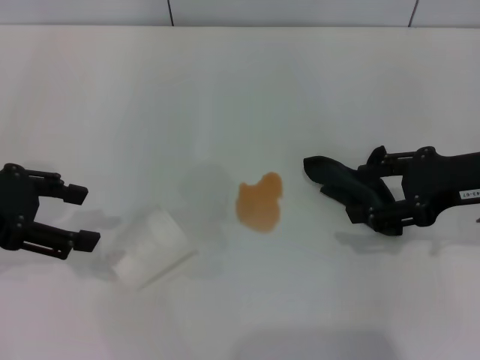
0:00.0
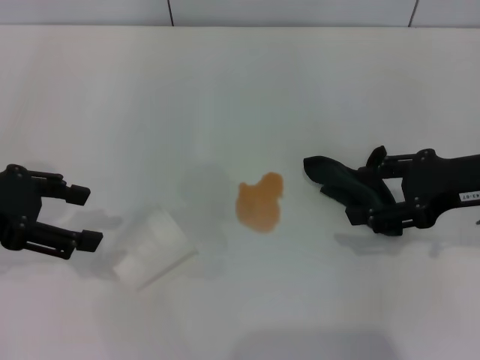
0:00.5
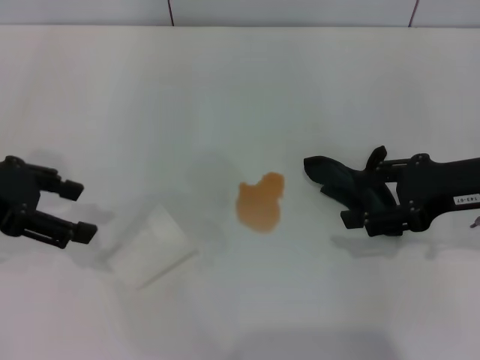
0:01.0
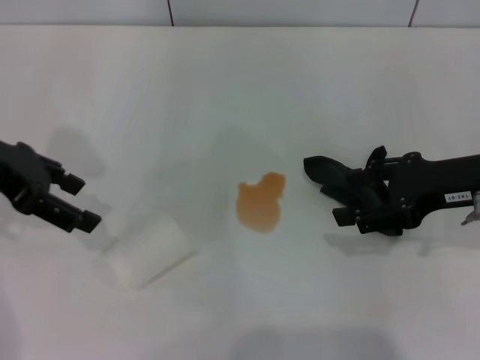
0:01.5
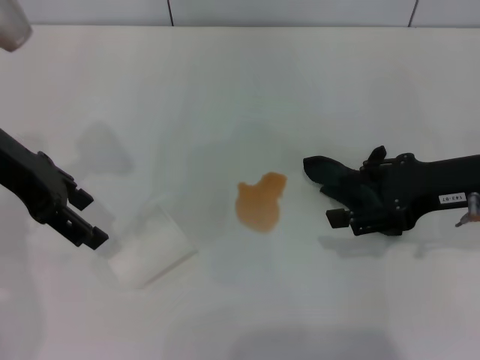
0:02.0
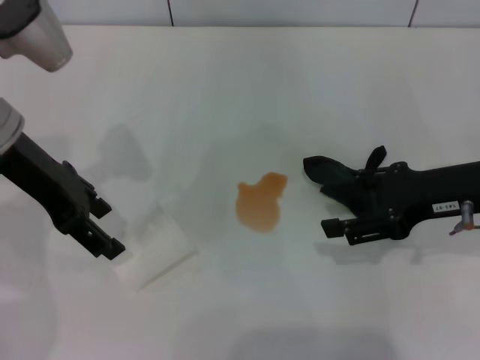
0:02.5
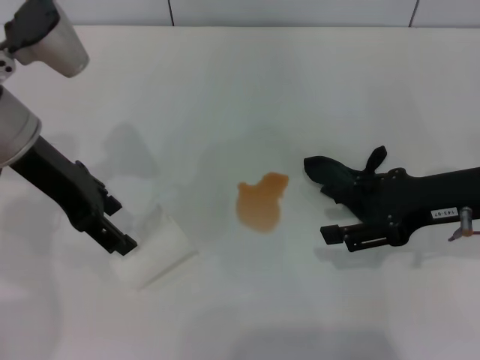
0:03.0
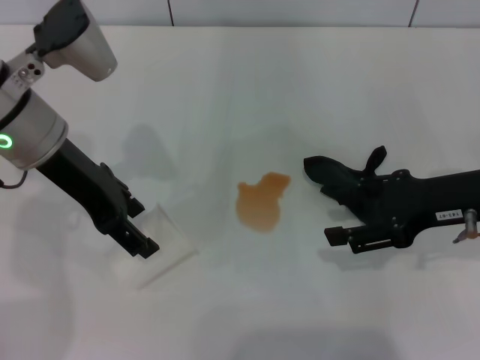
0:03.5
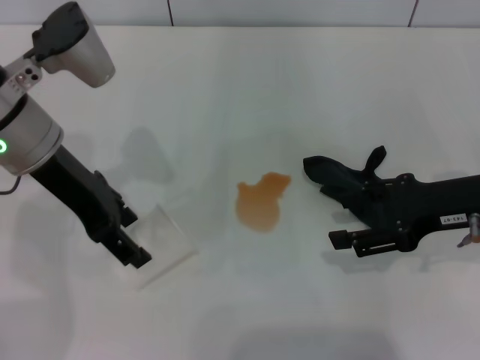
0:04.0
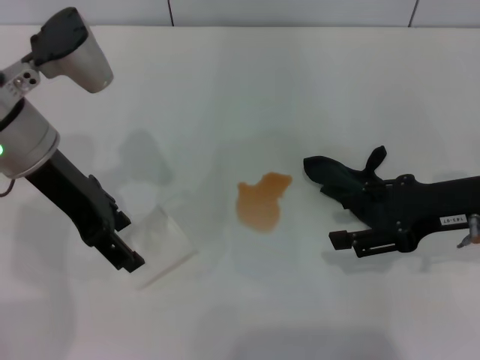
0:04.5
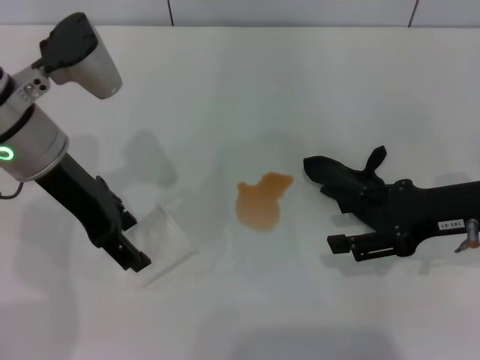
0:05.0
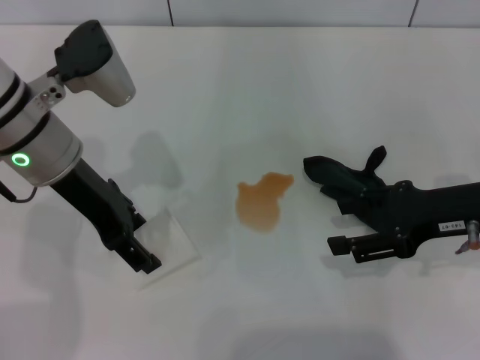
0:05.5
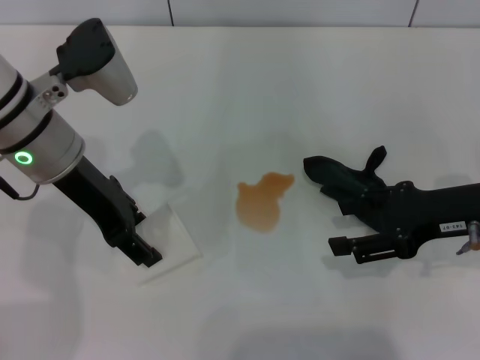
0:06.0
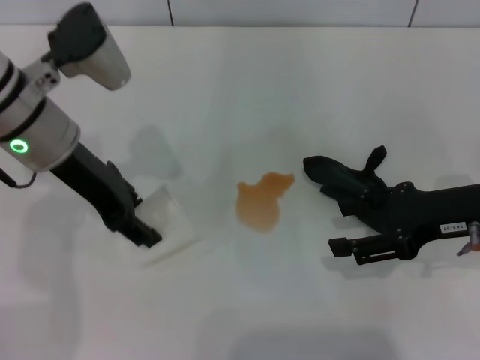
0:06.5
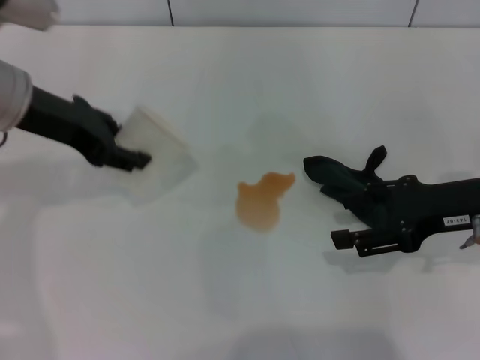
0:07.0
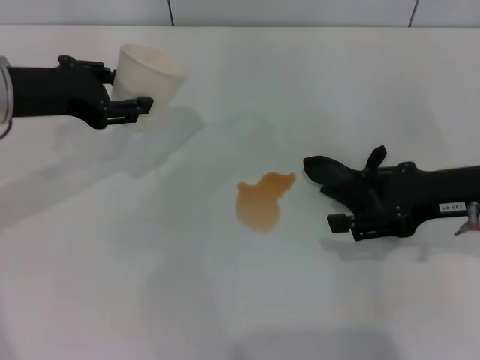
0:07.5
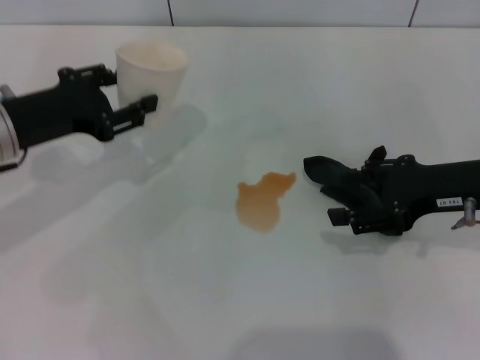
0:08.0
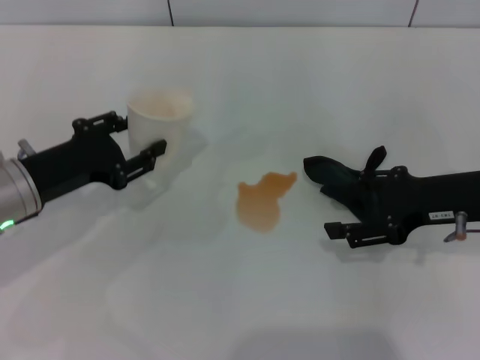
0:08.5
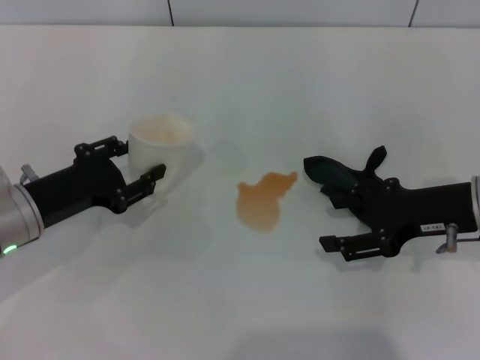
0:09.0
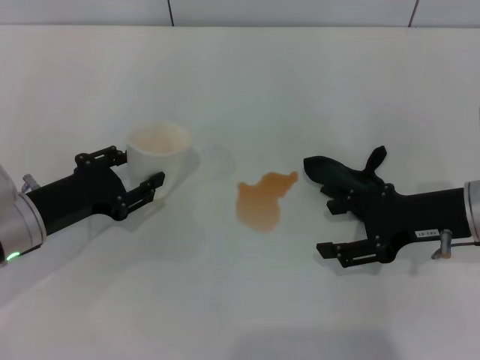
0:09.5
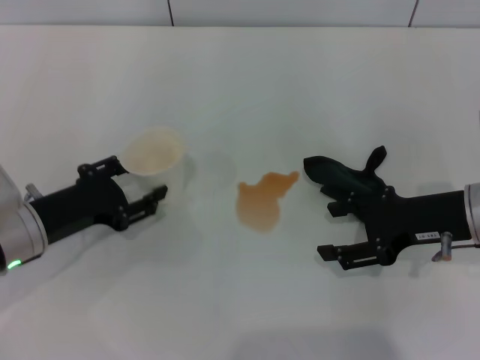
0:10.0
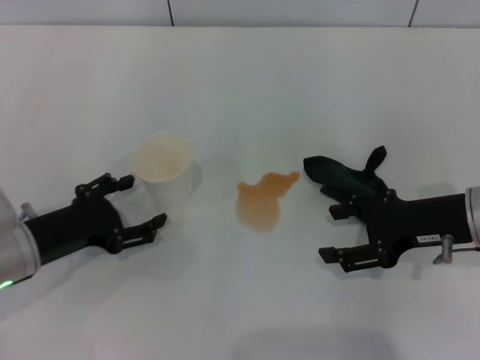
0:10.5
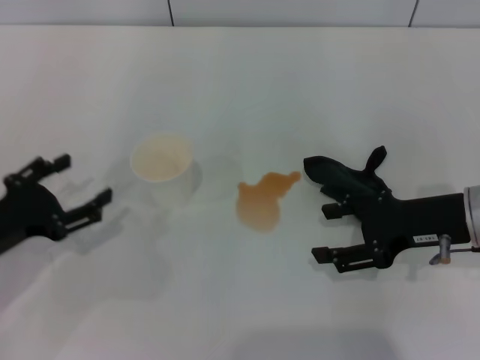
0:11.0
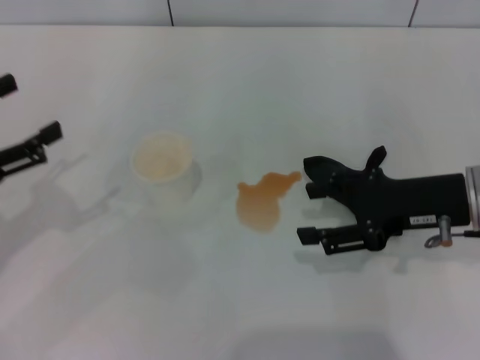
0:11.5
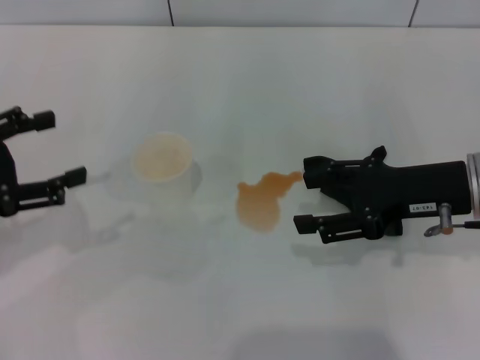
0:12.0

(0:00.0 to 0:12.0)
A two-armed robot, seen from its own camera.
Step, 0:00.0 - 0:06.0: Grasp the paper cup with the left gripper.
Step, 0:06.5 - 0:10.0: Stand the paper cup upright with the left gripper.
0:00.0 - 0:02.0: The left gripper moves forward and to the right, about 10 cm.
0:02.0 - 0:04.0: The left gripper changes place by some 5 cm.
0:04.0 - 0:06.0: The grippers move only a little.
0:06.0 - 0:08.0: The left gripper moves to the left, roughly 10 cm, and closes.
0:08.0 - 0:10.0: The left gripper travels downward and backward by approximately 10 cm.
0:10.0 - 0:12.0: The left gripper travels upward and to the left by approximately 15 cm, and opens.

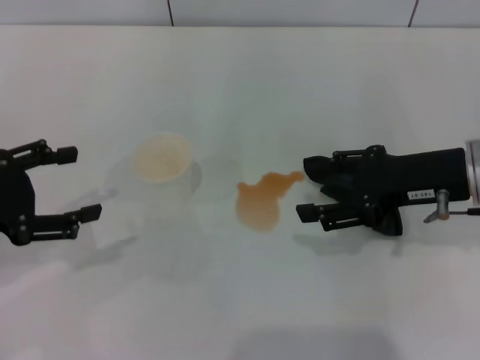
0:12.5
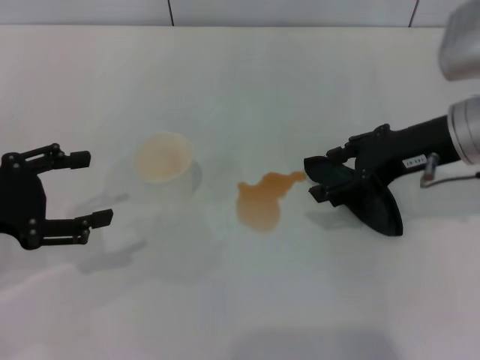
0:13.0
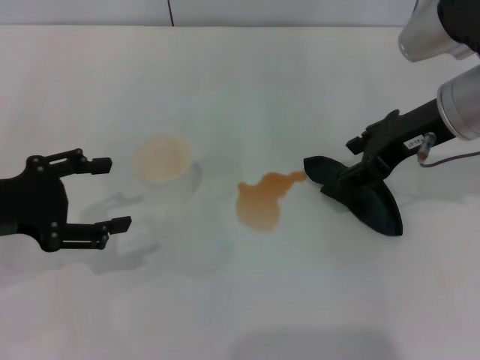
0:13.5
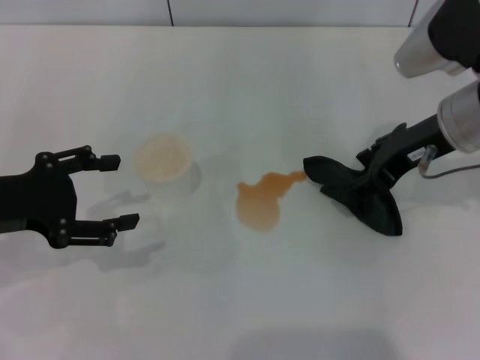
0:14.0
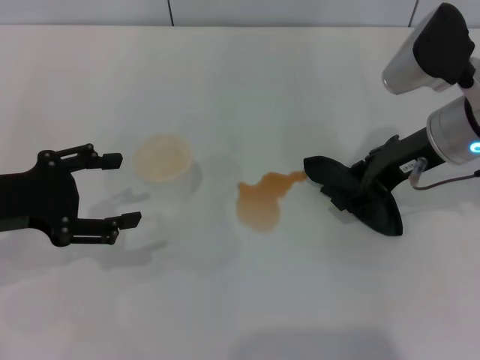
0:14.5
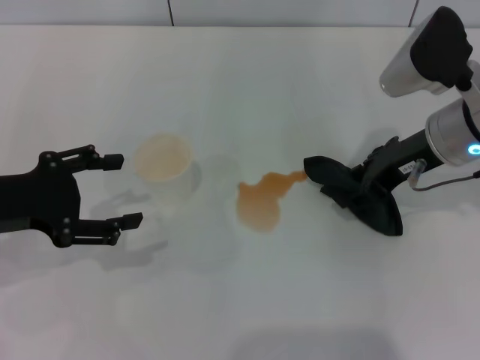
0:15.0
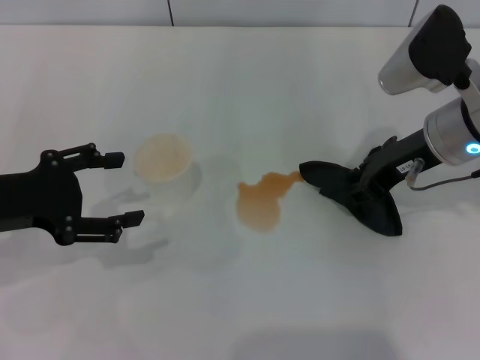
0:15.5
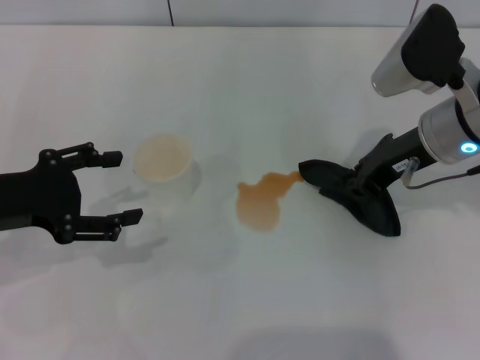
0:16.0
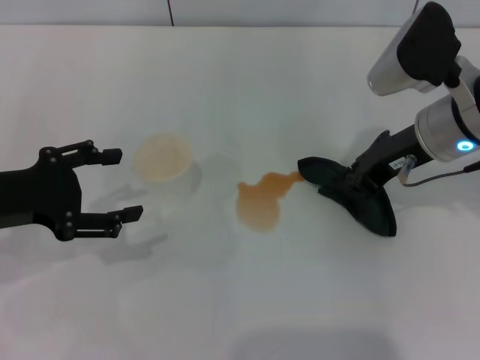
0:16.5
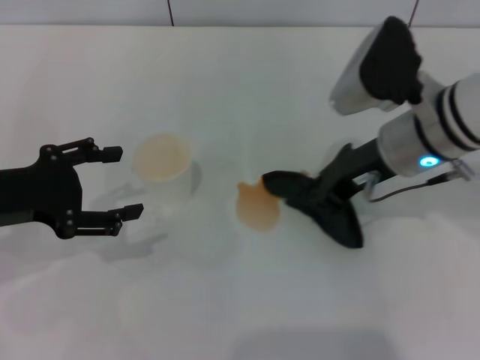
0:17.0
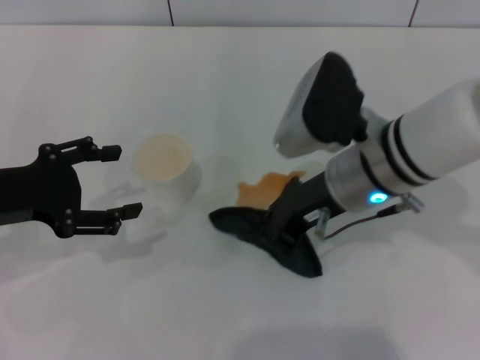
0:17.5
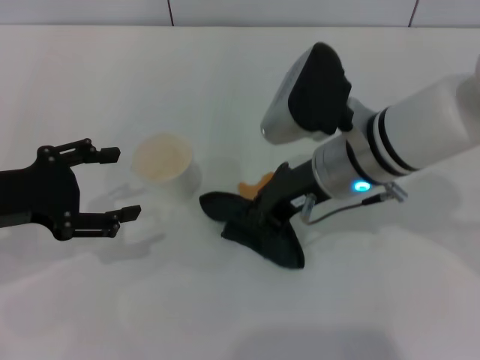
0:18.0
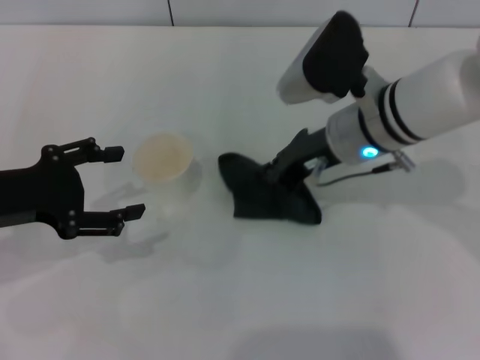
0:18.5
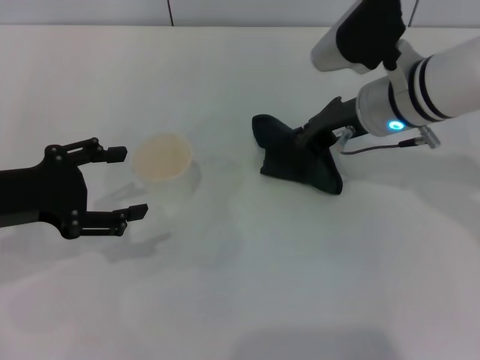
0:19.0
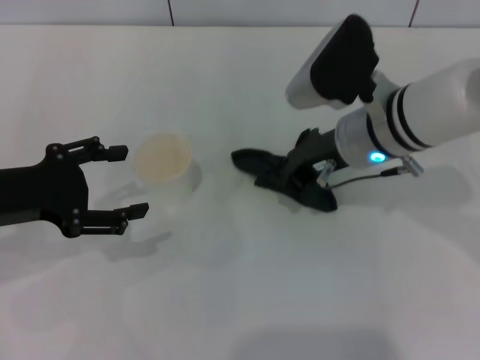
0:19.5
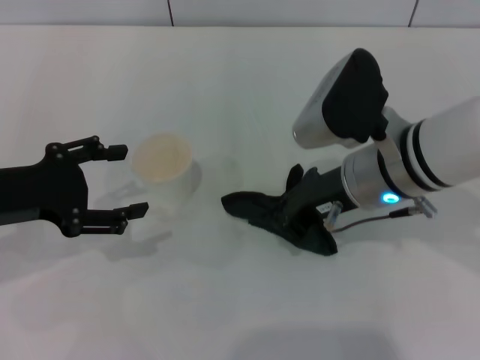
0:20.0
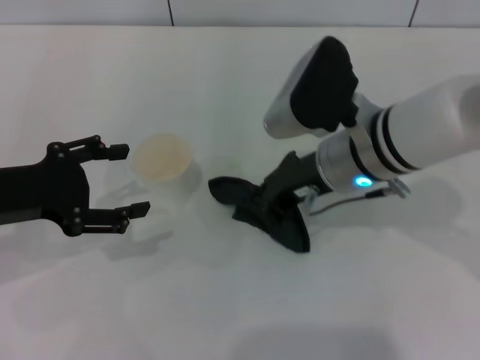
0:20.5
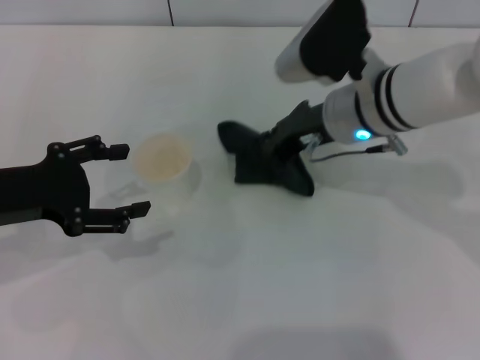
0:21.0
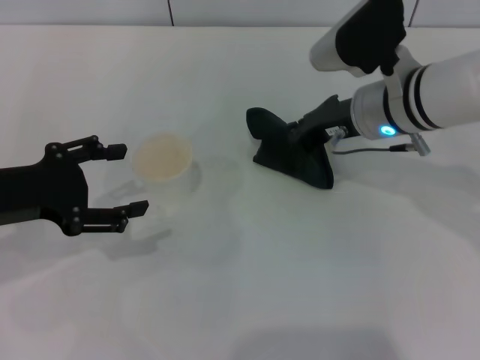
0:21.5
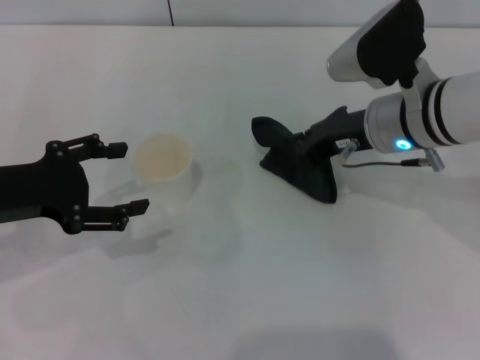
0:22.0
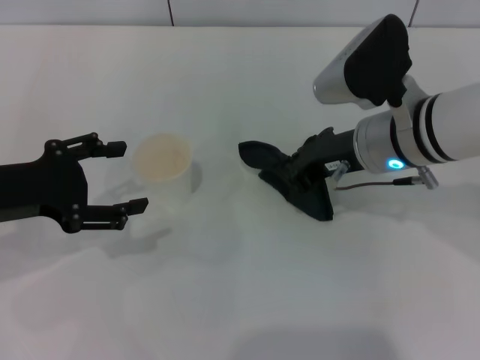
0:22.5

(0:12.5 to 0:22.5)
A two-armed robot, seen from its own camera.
Step, 0:12.5 - 0:16.0: Grasp the rag with the right gripper.
0:12.5 - 0:14.5: The right gripper travels forward by some 5 cm.
0:14.5 - 0:16.5: The right gripper closes its fingers.
0:16.5 - 0:18.5: The right gripper is displaced to the left by about 10 cm.
0:18.5 - 0:20.5: The grippers move only a little.

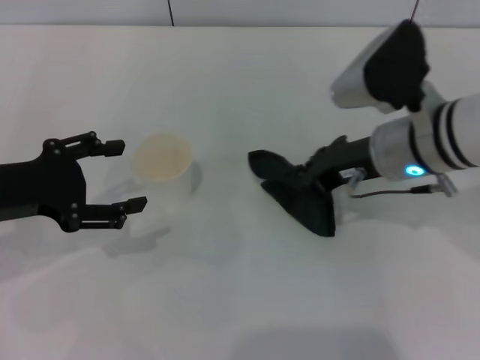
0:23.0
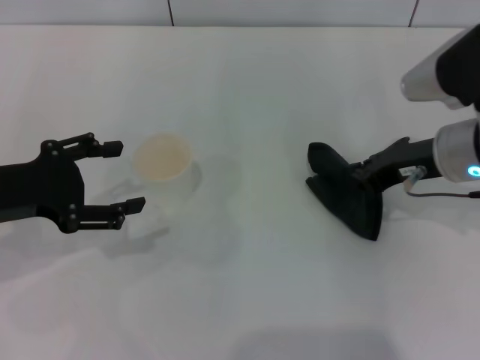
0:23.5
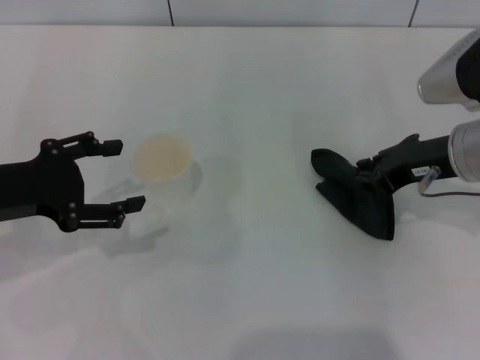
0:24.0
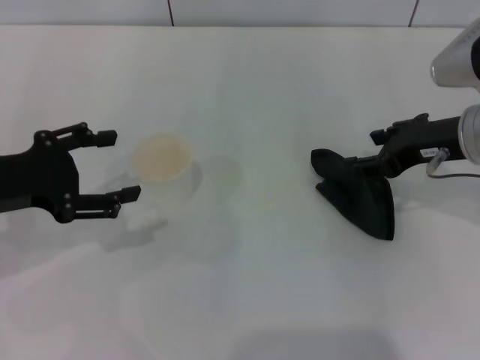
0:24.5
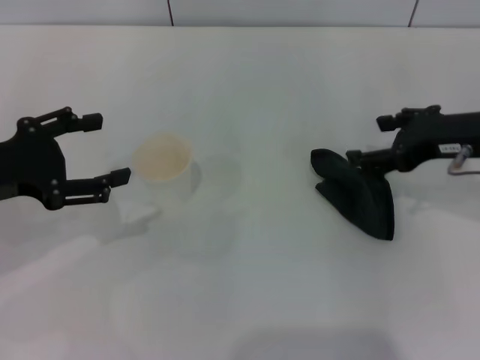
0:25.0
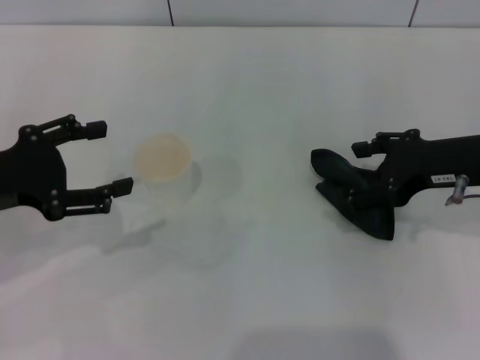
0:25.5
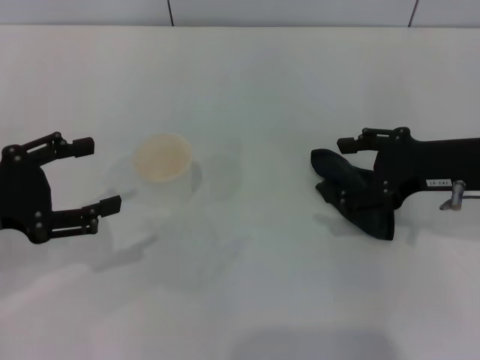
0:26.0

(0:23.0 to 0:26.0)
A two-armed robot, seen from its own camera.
Step, 0:23.0 - 0:24.5: Place the rag on the table with the right gripper.
0:23.0 - 0:24.5: The right gripper moves to the right, approximately 10 cm, and opens its fingers.
0:24.5 - 0:26.0: The right gripper opens up.
